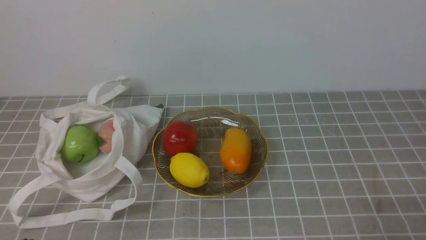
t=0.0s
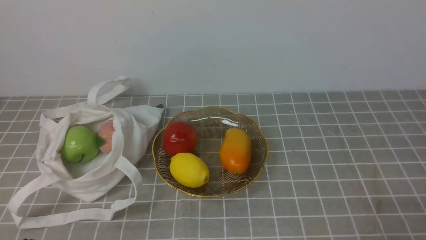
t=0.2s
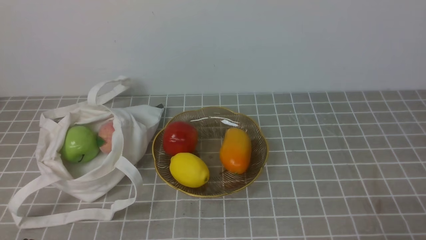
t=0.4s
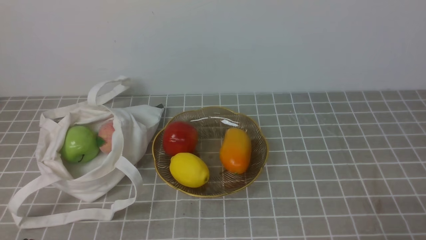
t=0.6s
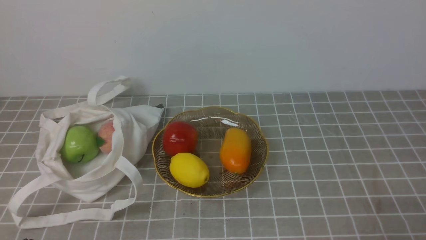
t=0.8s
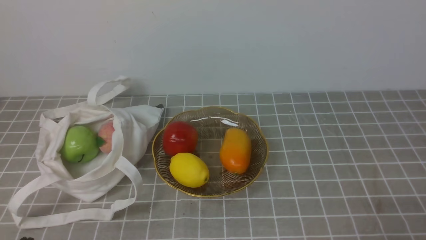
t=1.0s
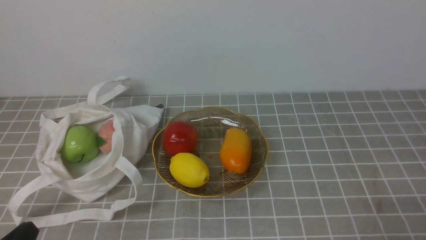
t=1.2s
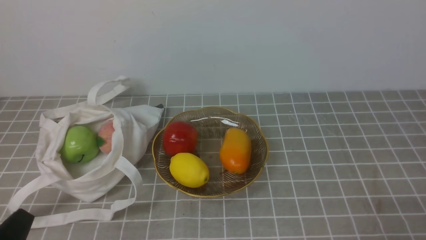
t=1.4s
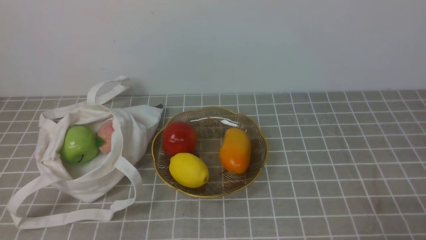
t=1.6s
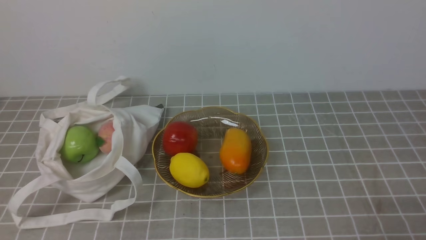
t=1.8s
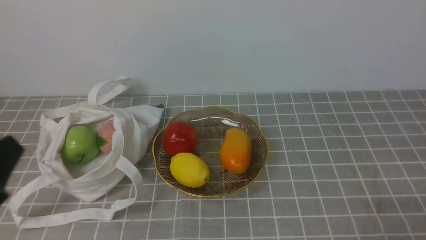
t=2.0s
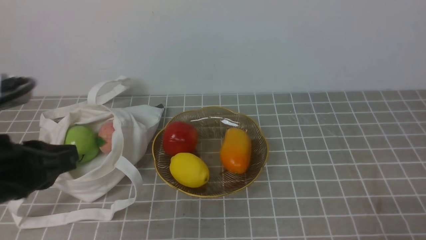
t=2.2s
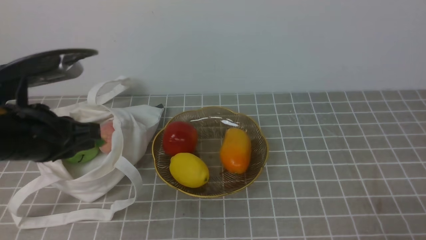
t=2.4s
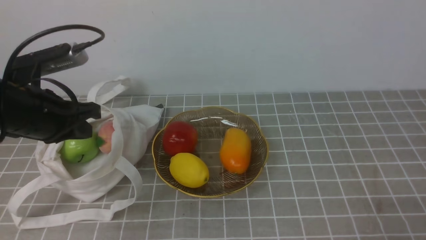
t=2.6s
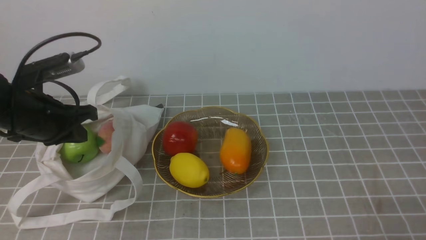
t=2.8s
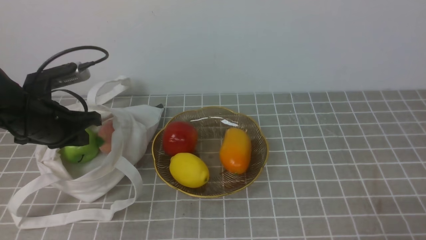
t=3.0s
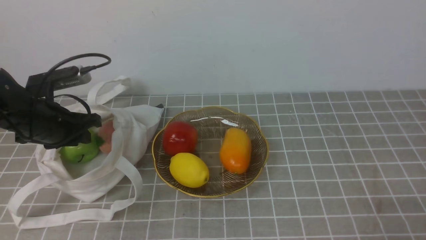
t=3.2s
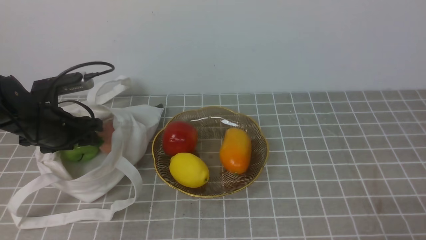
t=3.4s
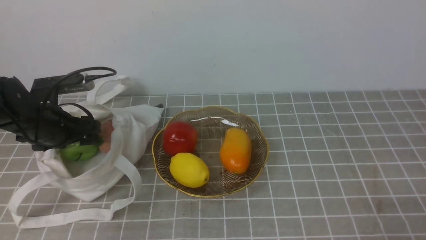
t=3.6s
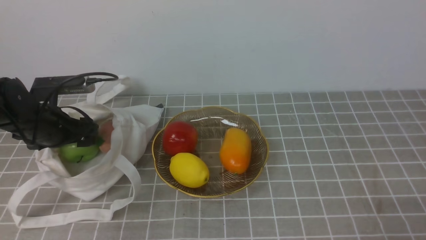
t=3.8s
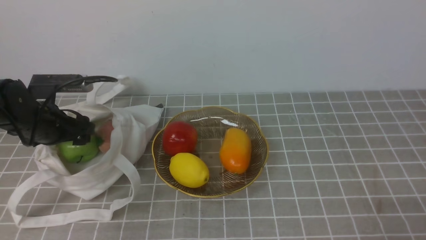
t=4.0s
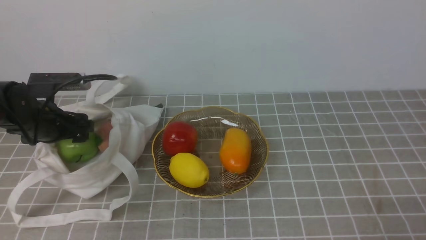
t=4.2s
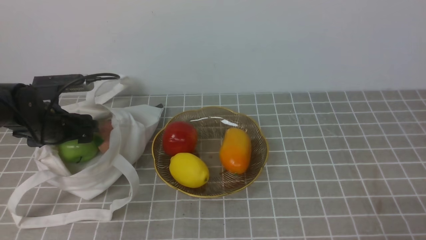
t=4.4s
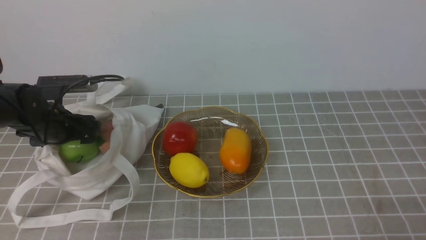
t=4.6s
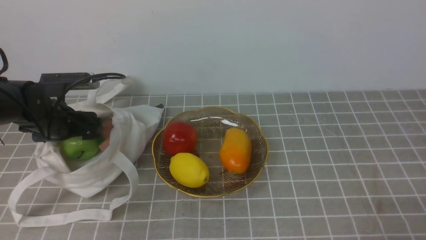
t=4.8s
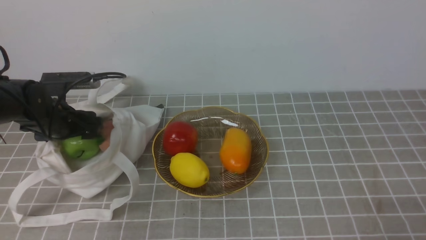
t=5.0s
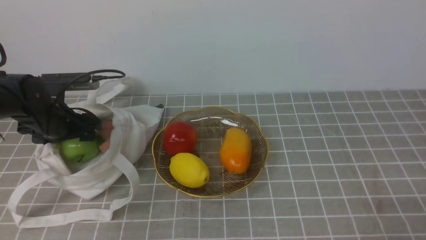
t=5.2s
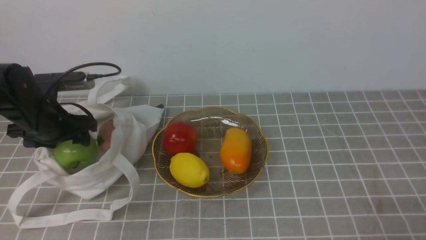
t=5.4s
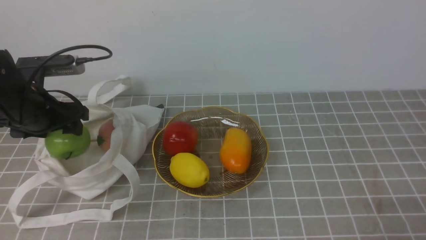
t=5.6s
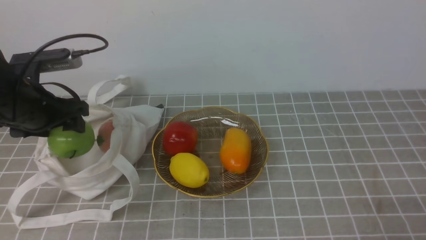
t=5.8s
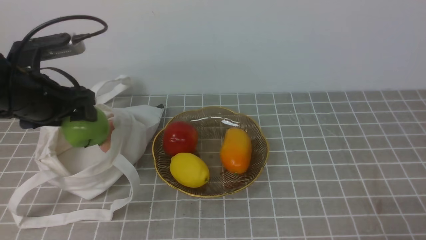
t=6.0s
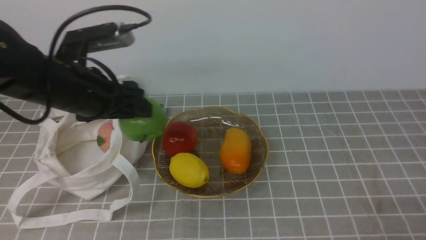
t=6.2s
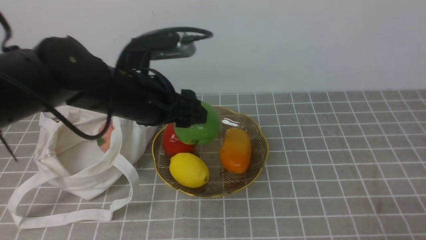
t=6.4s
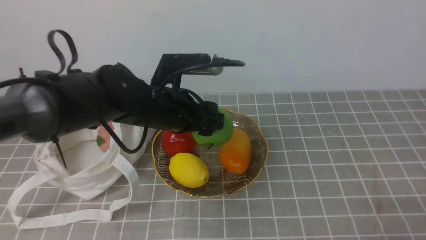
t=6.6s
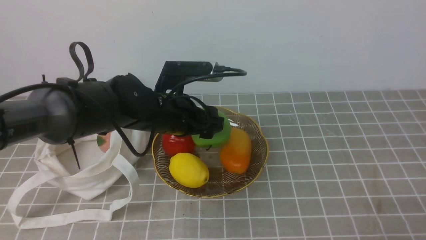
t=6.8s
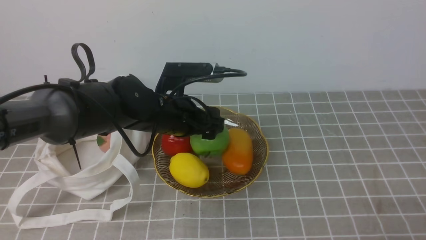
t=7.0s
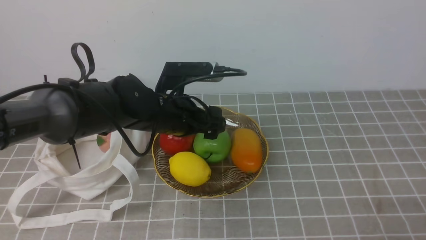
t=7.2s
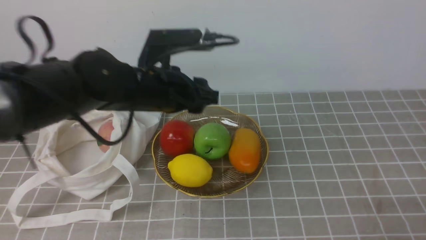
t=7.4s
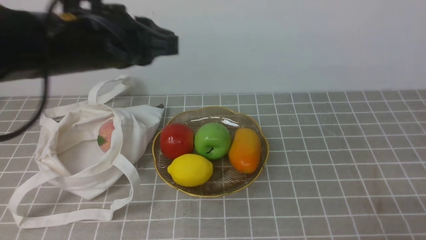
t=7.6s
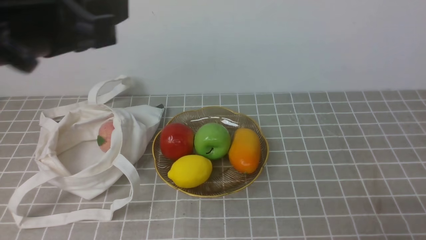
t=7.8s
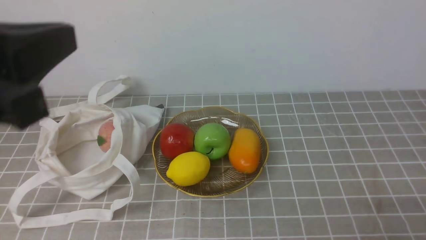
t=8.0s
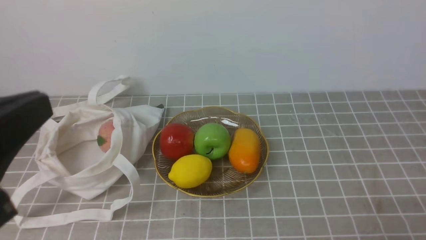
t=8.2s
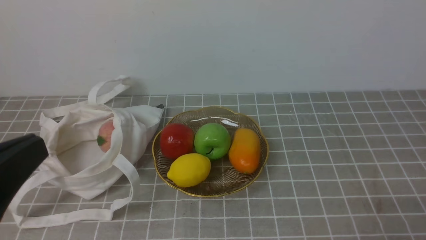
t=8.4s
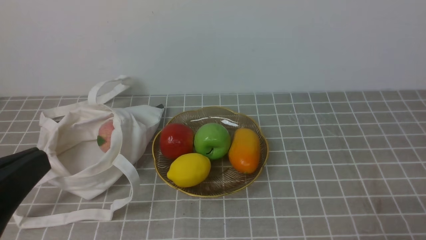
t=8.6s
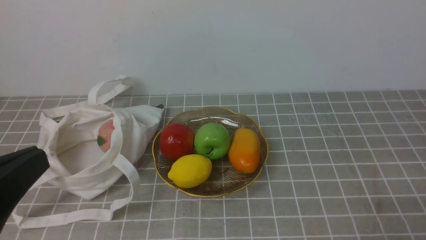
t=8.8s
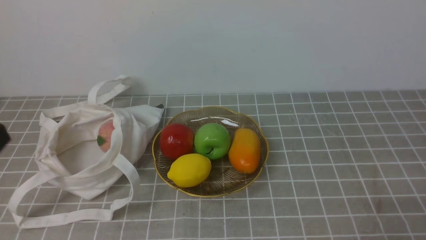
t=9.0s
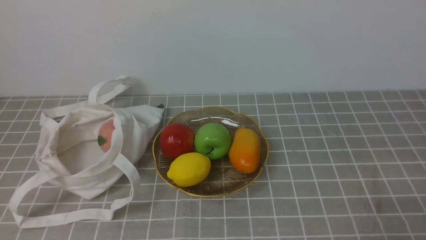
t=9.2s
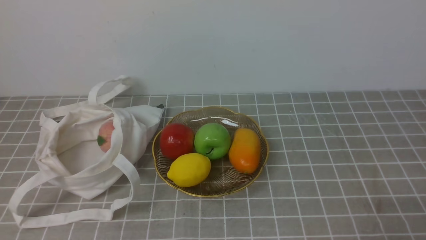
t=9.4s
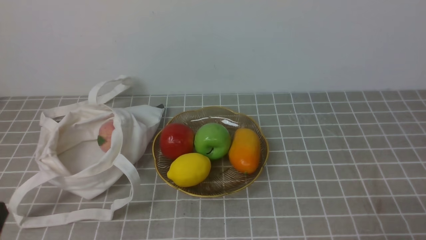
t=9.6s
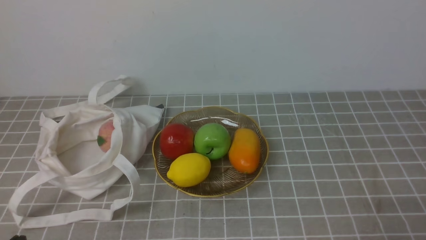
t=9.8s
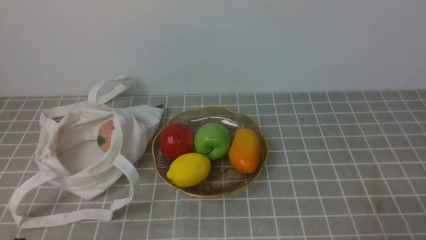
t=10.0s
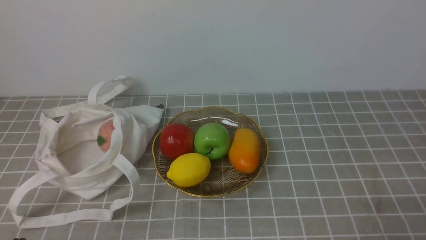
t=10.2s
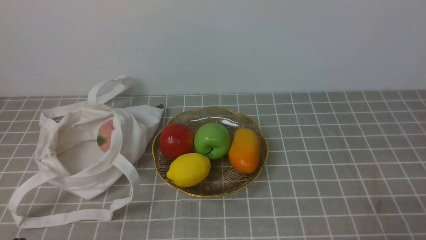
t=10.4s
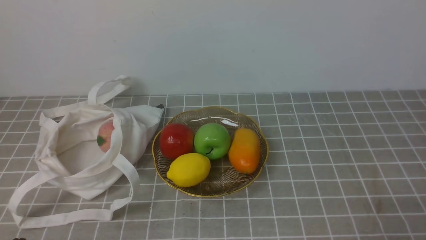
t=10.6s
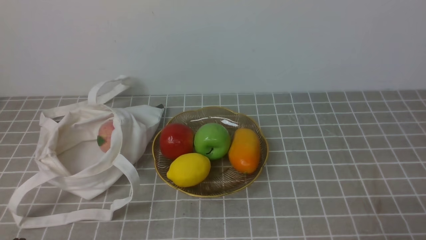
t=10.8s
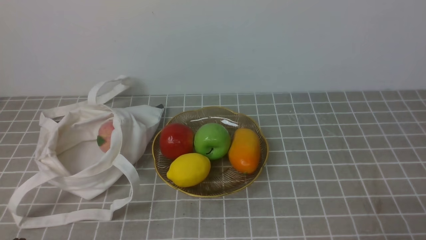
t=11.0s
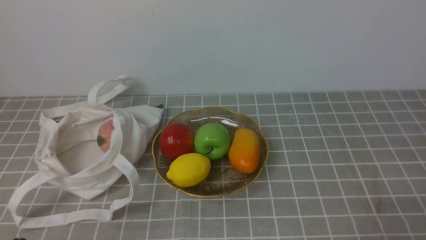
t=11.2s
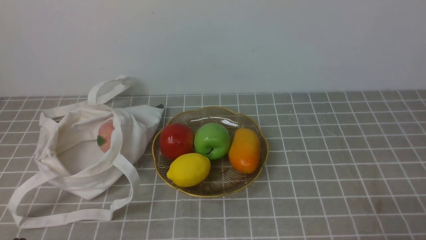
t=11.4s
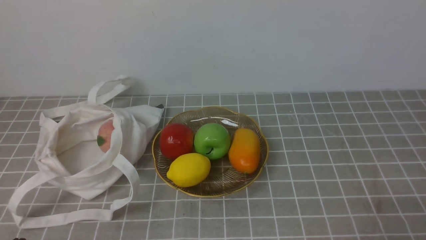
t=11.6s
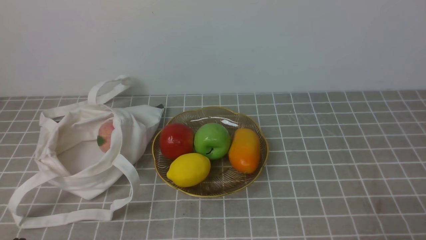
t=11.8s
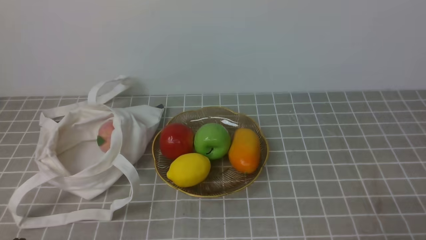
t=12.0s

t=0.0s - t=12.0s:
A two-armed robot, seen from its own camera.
Step, t=0.0s - t=5.0s: use the left arm to grab an apple from the bag.
Step, t=5.4s - t=7.2s: use the left arm to put the apple into the empty plate on the right.
t=1.6s - t=3.0s: The left gripper is displaced forward by about 25 cm.
t=3.0s - t=4.4s: The left gripper ends up roughly 5 cm from where it was, and opens up.
t=4.4s - t=6.0s: The left gripper moves upward, about 10 cm.
t=6.0s - t=7.6s: The left gripper moves to the right and upward, approximately 15 cm, and closes up.
t=7.6s - t=9.0s: The left gripper travels backward and to the left by some 25 cm.
t=10.4s - t=12.0s: Both grippers stay about where they are.

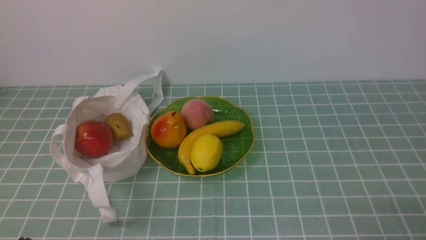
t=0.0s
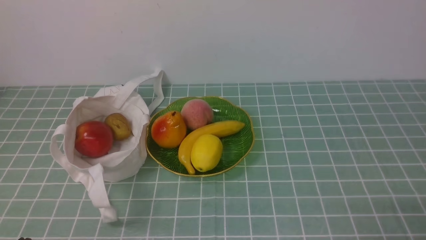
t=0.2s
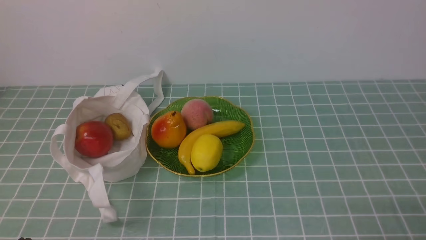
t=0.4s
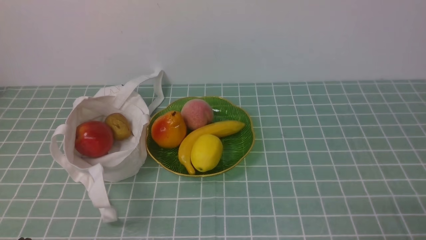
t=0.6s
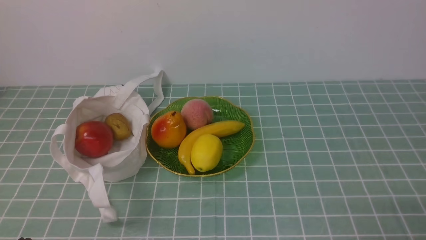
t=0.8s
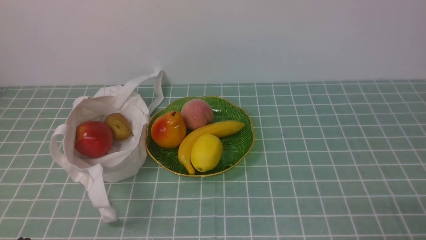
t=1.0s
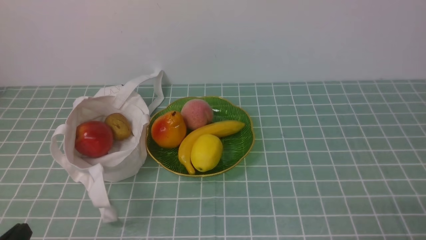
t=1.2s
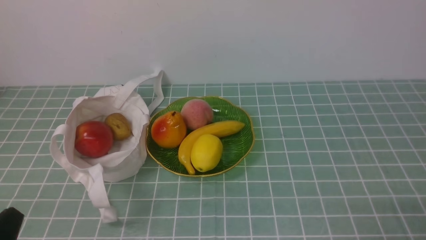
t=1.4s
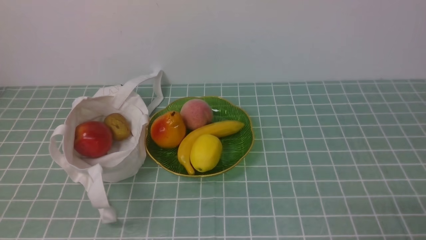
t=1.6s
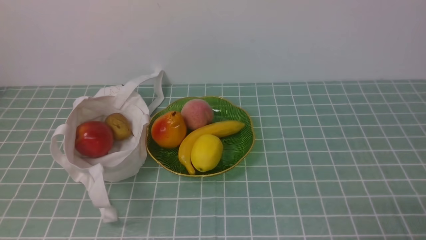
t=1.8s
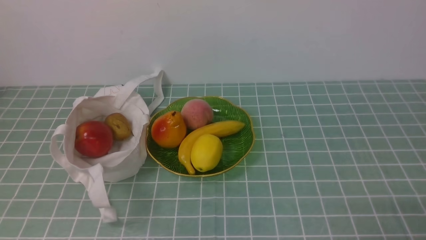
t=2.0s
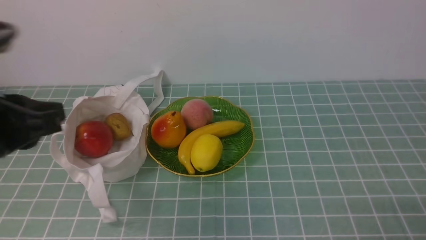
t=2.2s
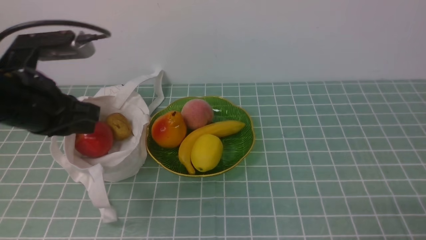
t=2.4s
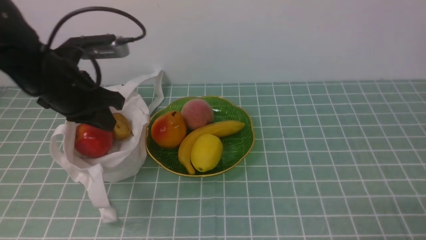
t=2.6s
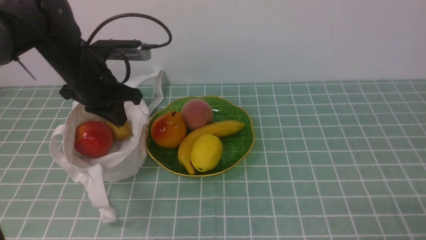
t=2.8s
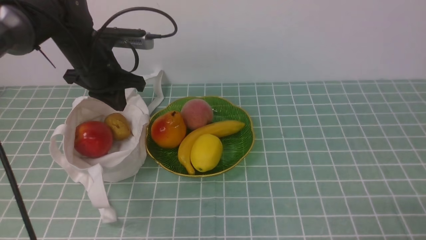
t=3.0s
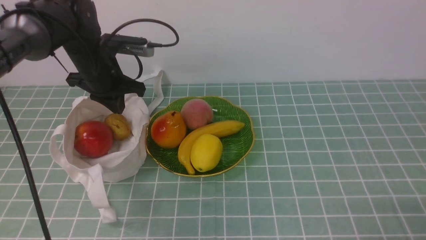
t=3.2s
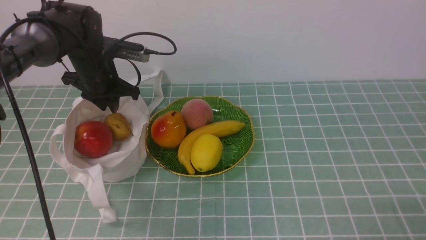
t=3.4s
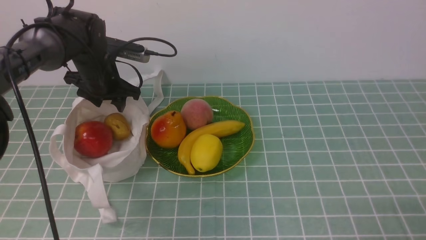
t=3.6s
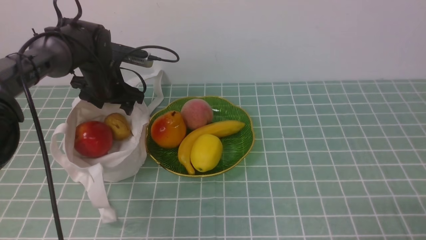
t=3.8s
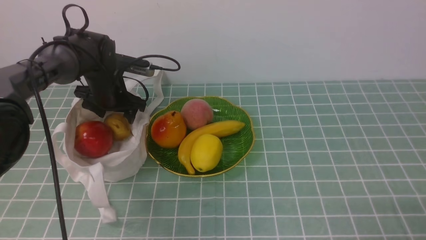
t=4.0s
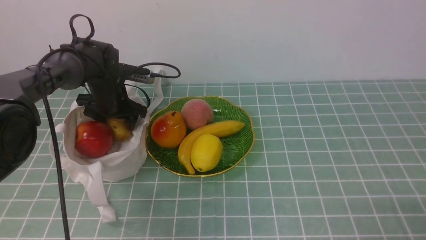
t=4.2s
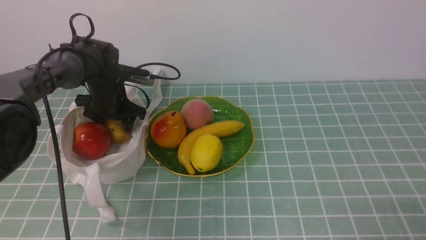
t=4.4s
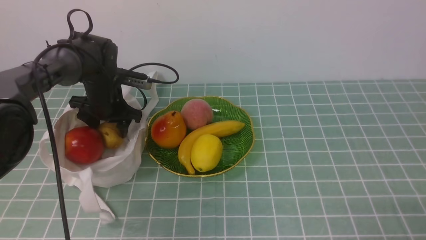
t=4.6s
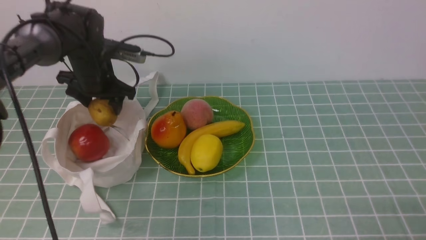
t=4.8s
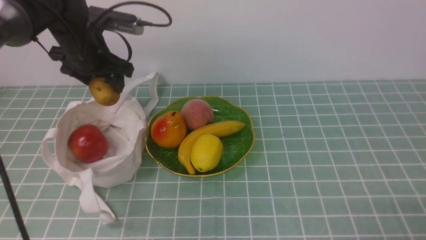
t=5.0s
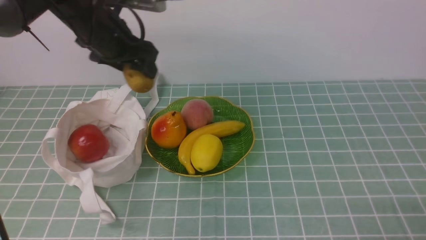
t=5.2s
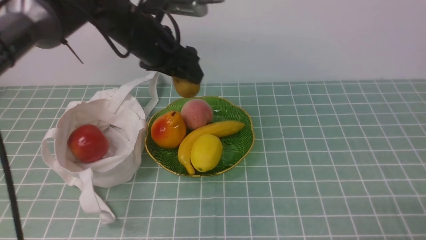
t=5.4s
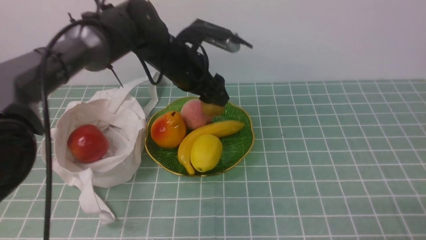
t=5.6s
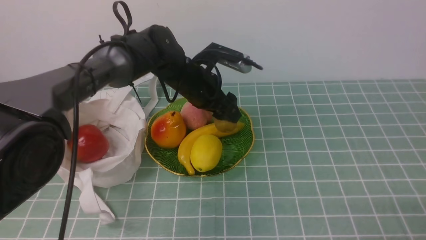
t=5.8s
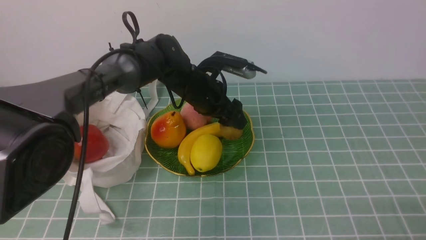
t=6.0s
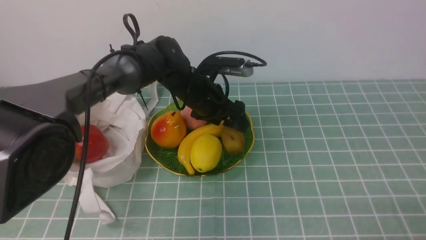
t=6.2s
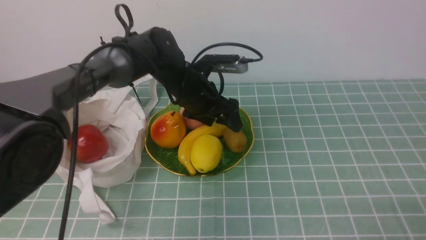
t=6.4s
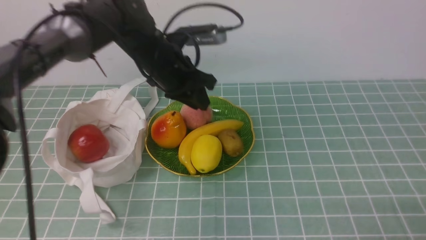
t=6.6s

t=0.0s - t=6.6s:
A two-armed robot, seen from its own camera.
Step, t=0.0s - t=4.4s: use the left arm to grab a kiwi from the bag.
Step, t=4.8s - t=6.2s: use the left arm to put the kiwi into the empty plate on the right.
t=1.6s - t=3.2s: The left gripper goes about 40 cm forward.
t=3.2s - t=5.0s: The left gripper goes downward and returns, some 10 cm each way, and opens.
t=5.0s - t=6.6s: The left gripper shifts approximately 10 cm to the right, and closes.
